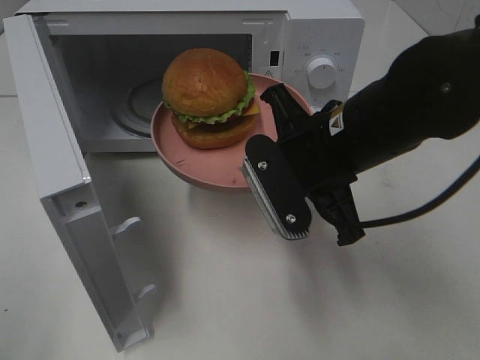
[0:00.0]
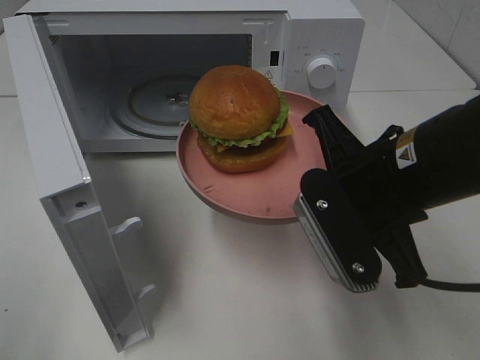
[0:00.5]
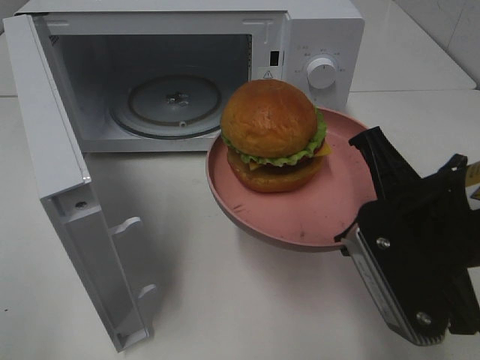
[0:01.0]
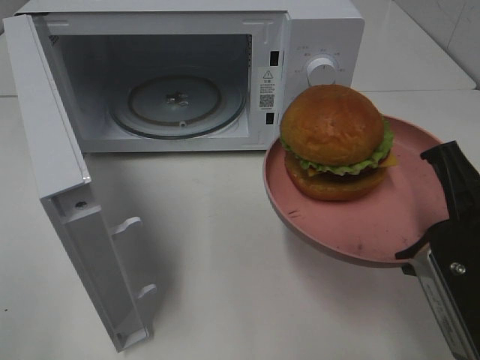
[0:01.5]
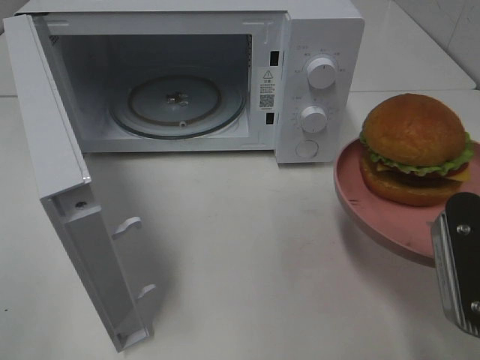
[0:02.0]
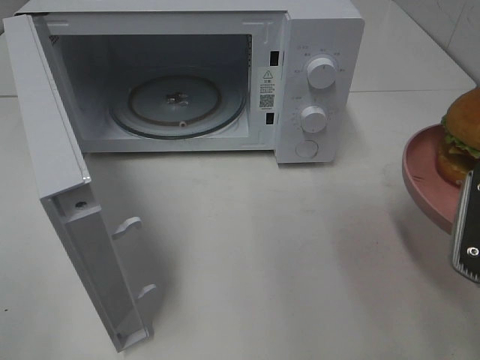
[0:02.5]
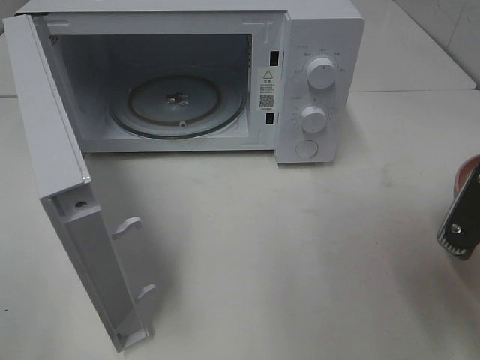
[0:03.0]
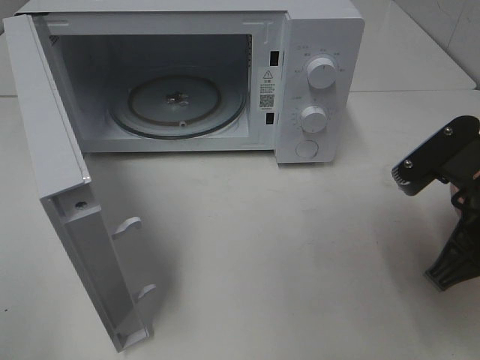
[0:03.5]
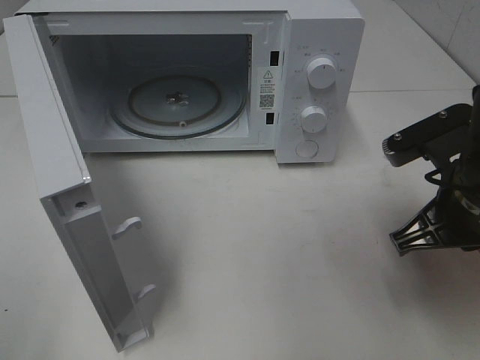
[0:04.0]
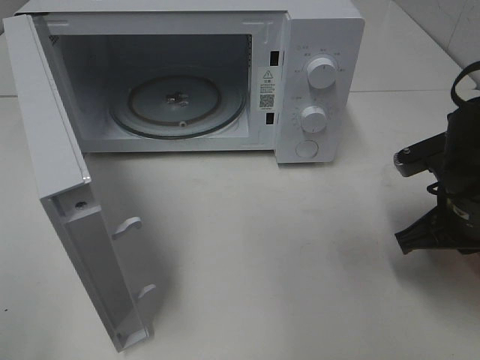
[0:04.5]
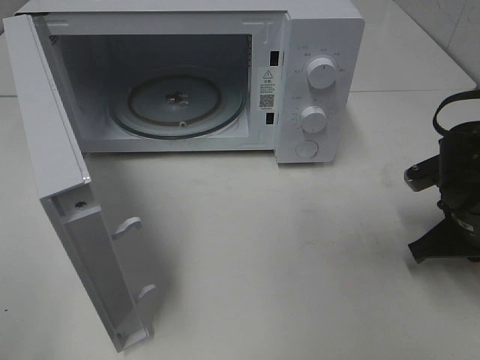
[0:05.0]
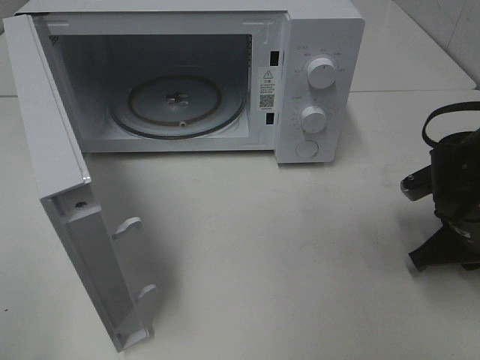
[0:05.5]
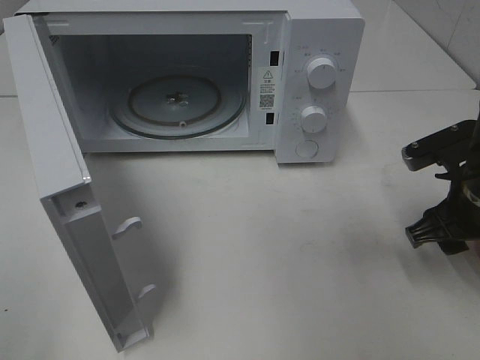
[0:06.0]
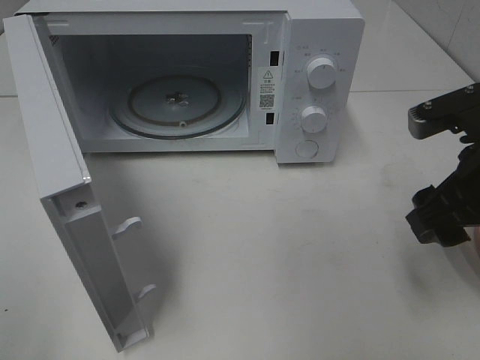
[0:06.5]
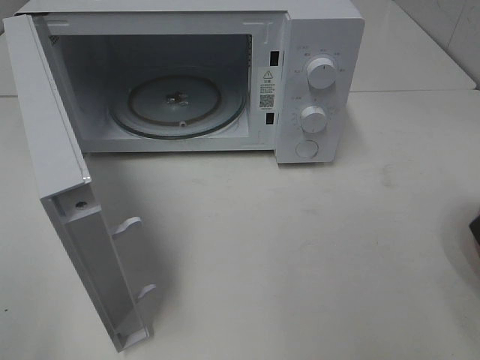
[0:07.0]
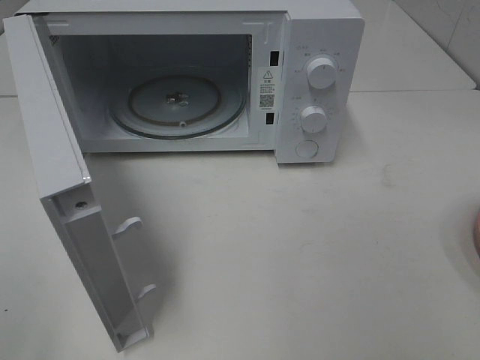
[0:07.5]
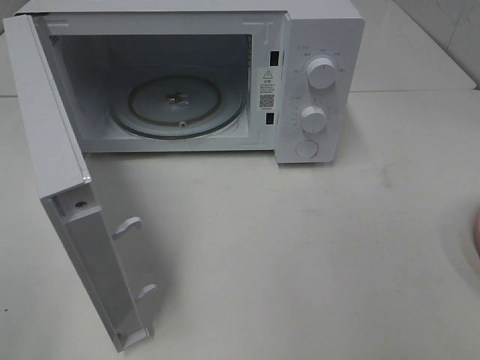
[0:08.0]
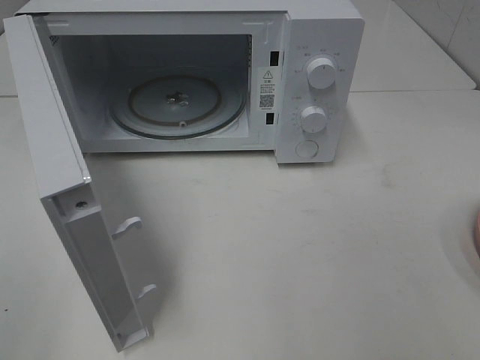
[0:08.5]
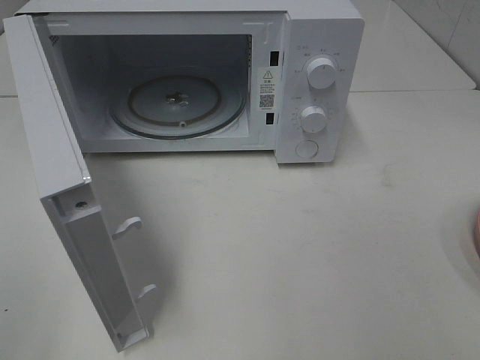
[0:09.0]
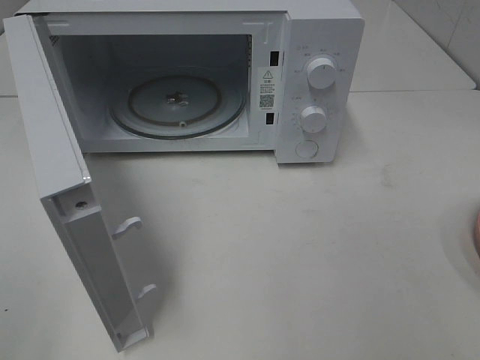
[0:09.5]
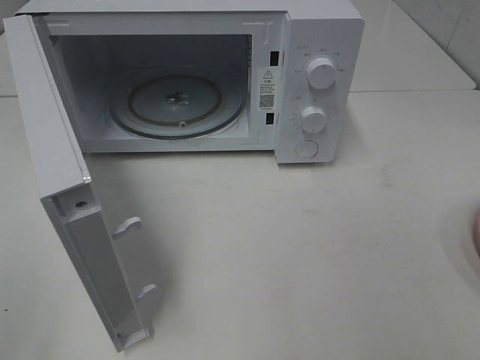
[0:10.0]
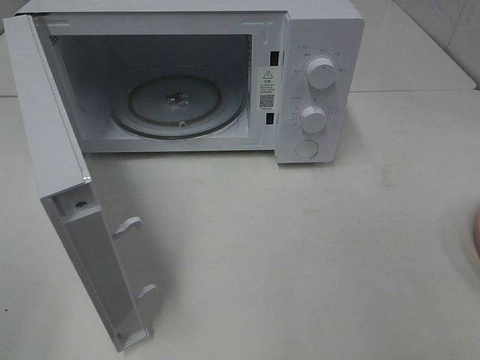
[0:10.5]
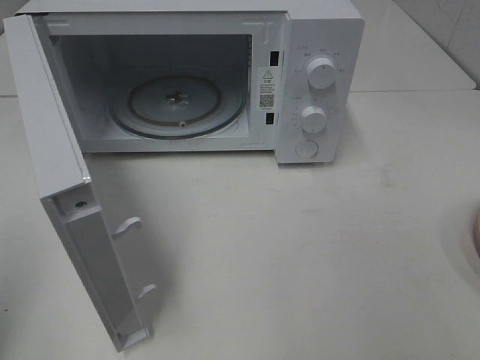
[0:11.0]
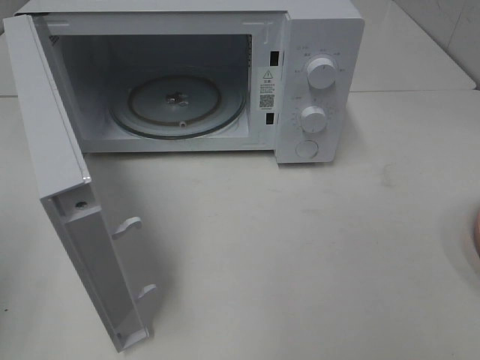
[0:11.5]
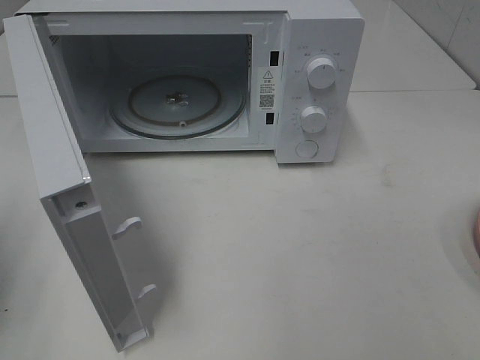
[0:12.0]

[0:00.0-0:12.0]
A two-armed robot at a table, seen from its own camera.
Task of the whole recording: Heat the burger.
Step, 0:00.0 to 0:05.5: Right hand: place the plate on the table.
0:00.0 to 0:02.0: The right gripper shifts approximately 15 cm to the right and backward.
0:02.0 to 0:04.0: The right gripper goes approximately 10 cm forward.
0:04.0 to 0:06.0: The right gripper opens its fingers.
0:06.0 to 0:08.0: The right gripper is displaced backward and upward by about 25 cm.

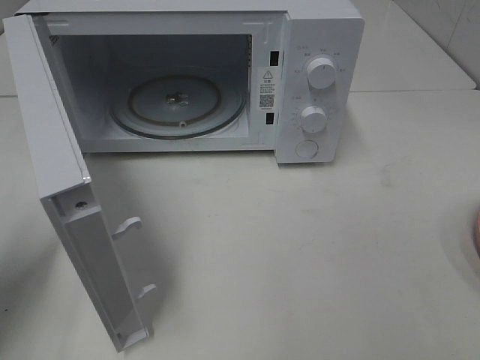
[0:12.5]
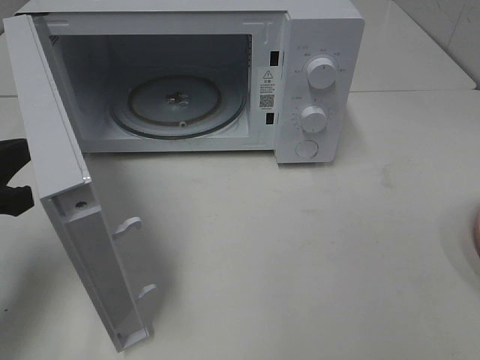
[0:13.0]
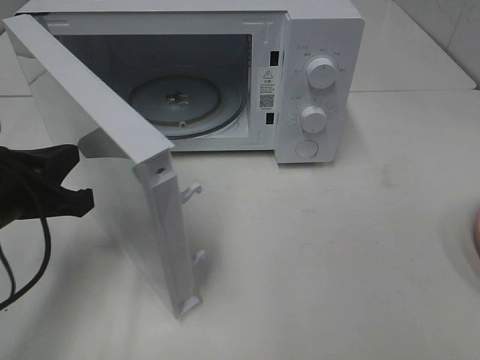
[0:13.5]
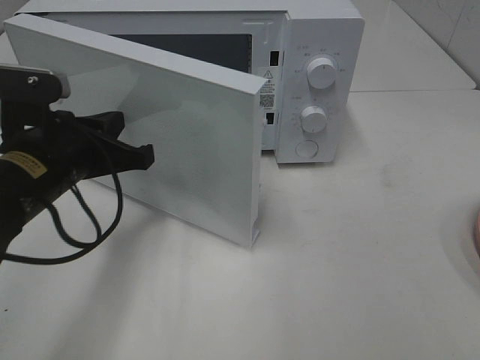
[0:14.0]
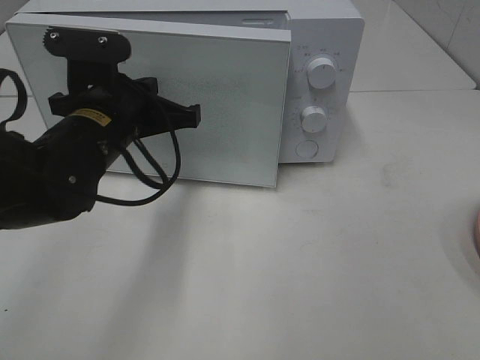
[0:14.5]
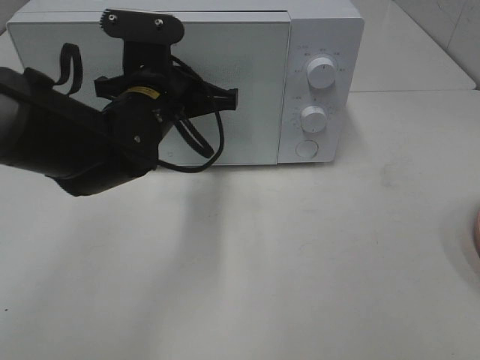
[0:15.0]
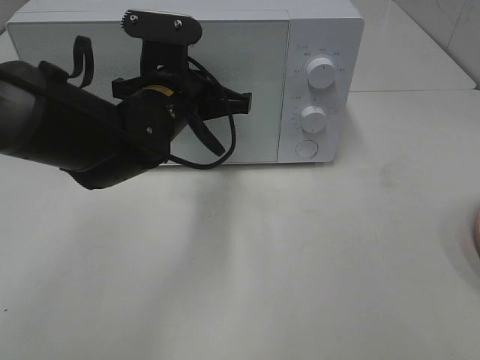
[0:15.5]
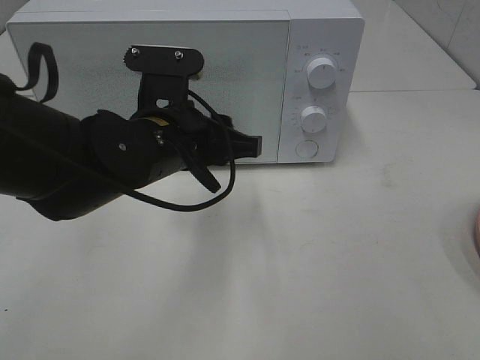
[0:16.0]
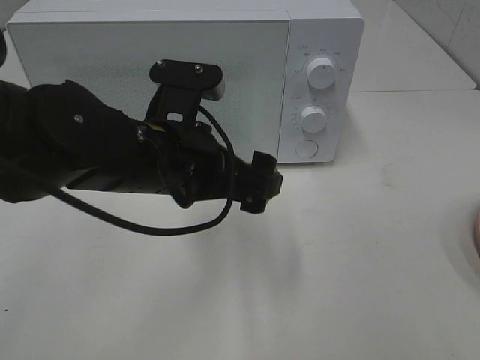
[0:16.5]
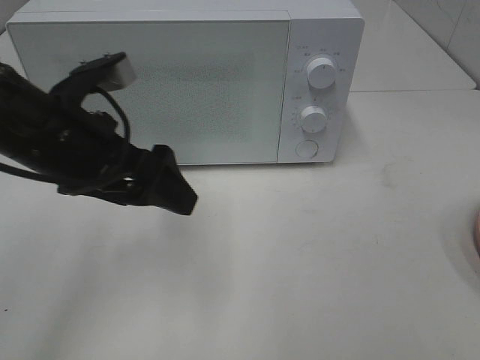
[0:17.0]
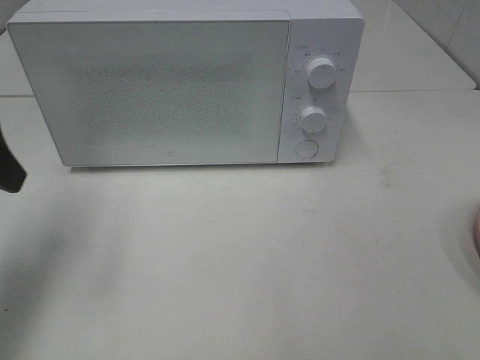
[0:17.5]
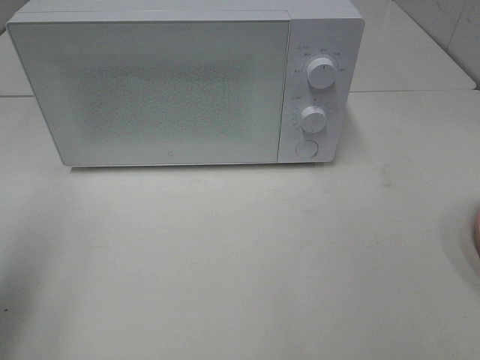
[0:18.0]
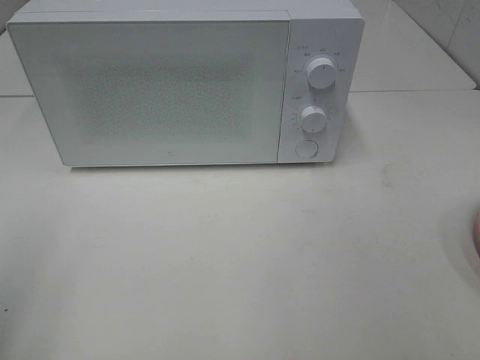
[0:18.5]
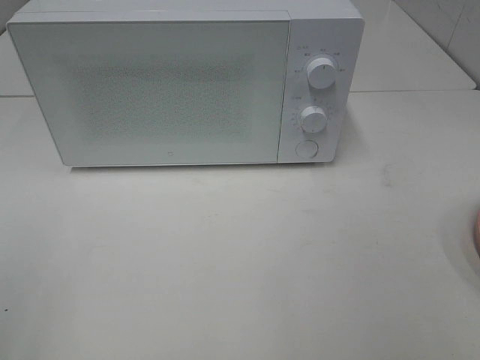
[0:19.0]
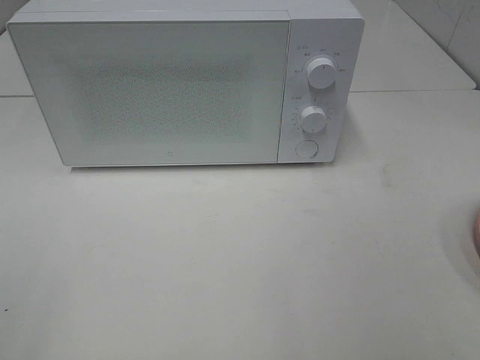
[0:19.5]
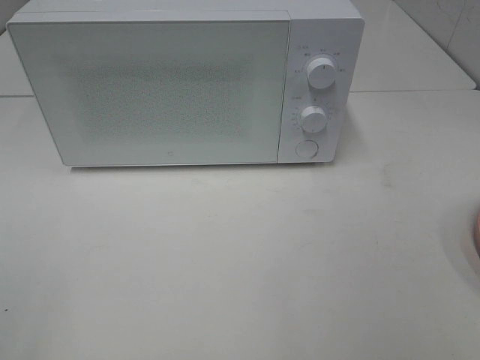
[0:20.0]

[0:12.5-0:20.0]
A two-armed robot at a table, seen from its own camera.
Task of the whole recording: Heat the burger.
Step, 0:12.5 to 0:16.0: Left hand: close the microwave door.
0:12.5 to 0:14.5: The left gripper travels to the right and forward by roughly 20 cm.
0:14.5 to 0:16.5: The left gripper travels to the right and backward by about 10 cm, and opens its fingers.
0:16.5 to 0:18.0: The left gripper moves to the left and upward, about 25 cm.
0:18.0 to 0:20.0: The left gripper is displaced backward by about 15 cm.

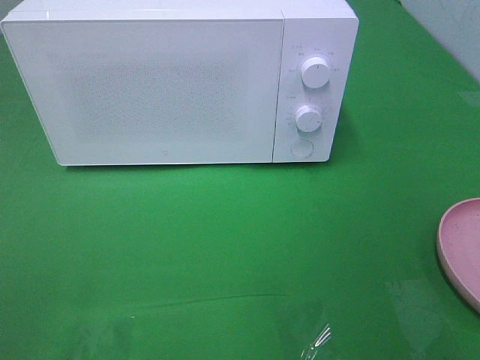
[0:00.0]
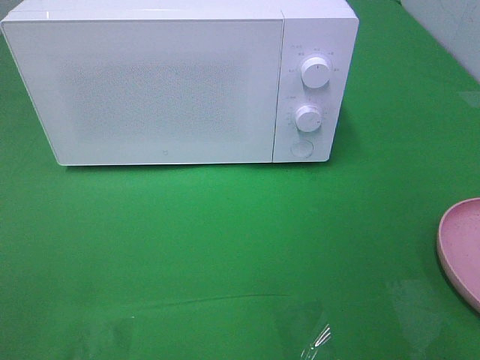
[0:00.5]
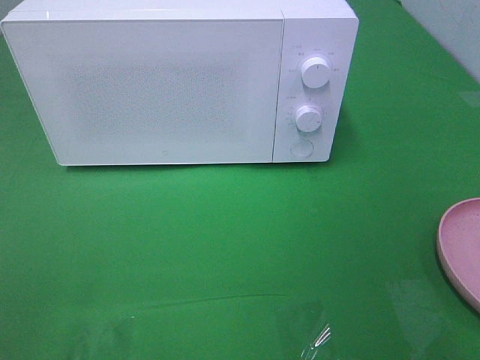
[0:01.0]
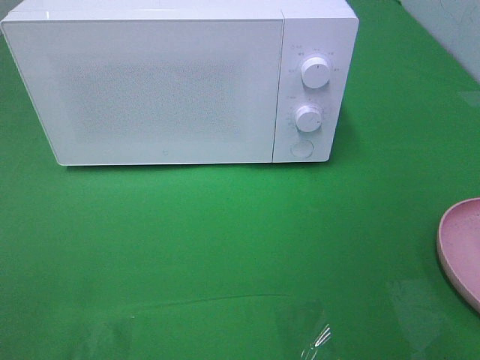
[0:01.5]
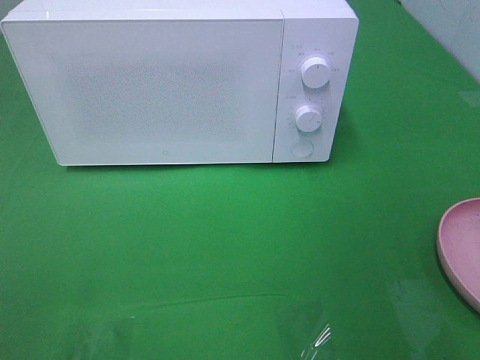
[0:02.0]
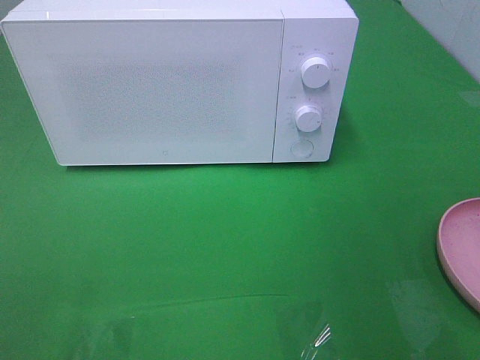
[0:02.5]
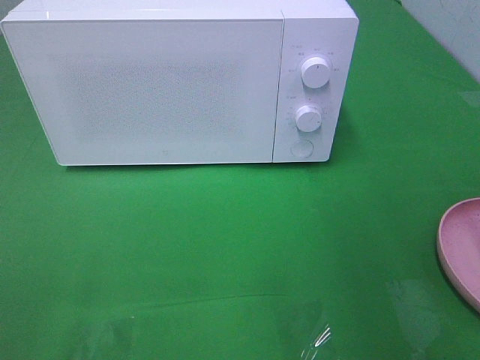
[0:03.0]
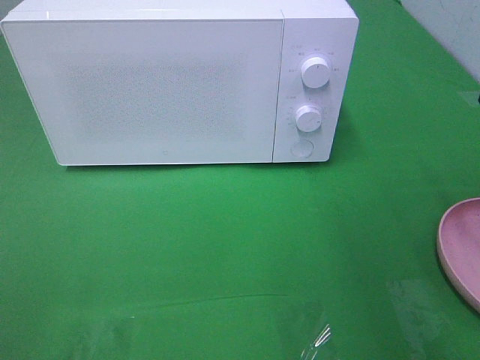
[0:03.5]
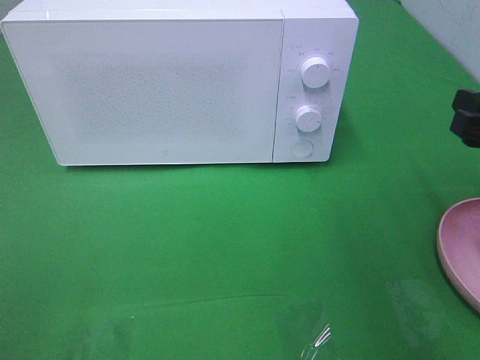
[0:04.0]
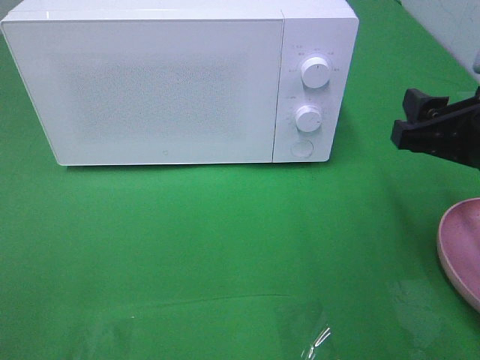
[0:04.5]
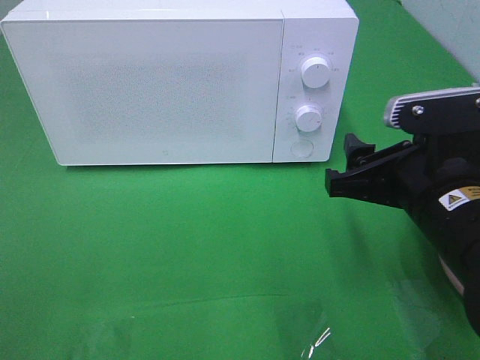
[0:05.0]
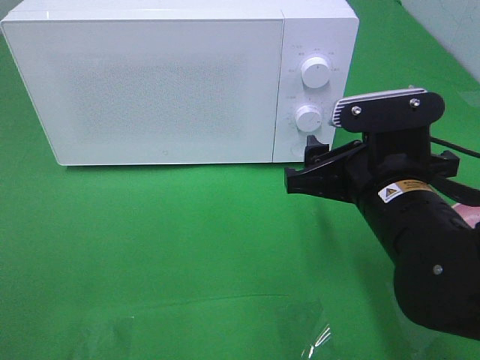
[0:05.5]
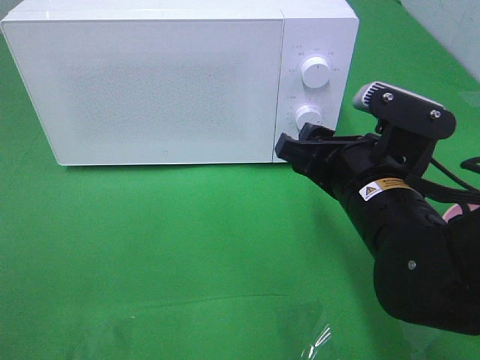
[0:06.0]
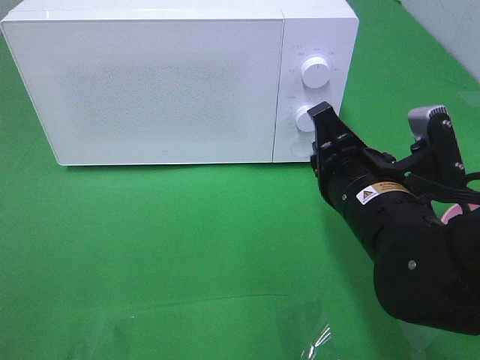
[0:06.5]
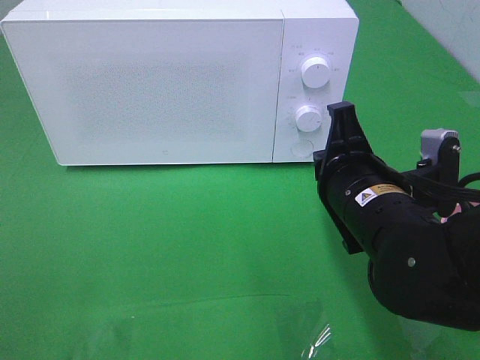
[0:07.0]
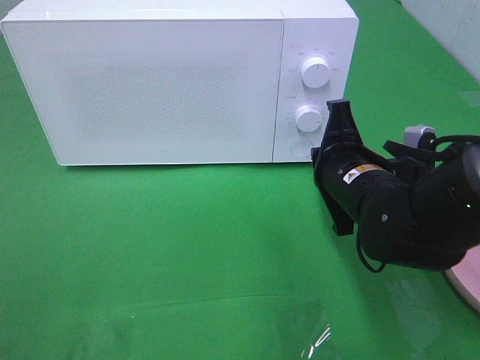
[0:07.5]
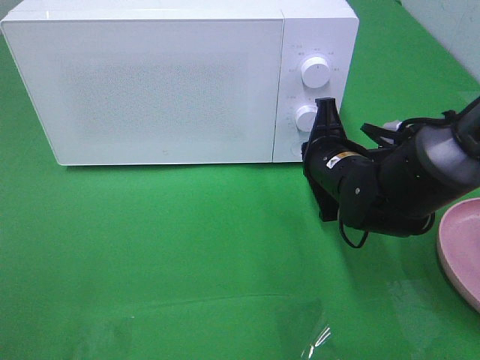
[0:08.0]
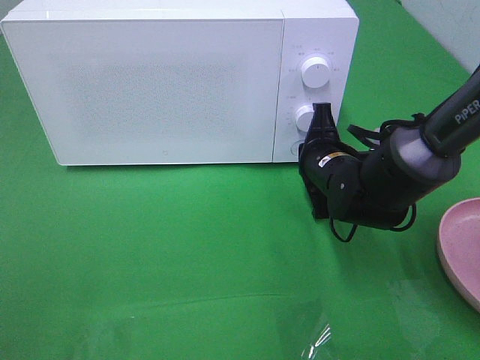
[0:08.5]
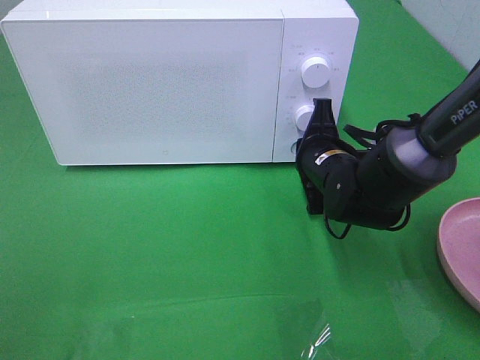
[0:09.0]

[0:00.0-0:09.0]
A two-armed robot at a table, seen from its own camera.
Task of the whole recording: Heat the burger.
0:02.0 to 0:04.5: The right gripper moves forward, downward and to the left, roughly 20 cm.
0:04.5 to 0:07.0: The right gripper is displaced to the left and downward by about 10 cm, and closes.
0:07.0 to 0:09.0: The right gripper is displaced forward and downward by approximately 15 cm.
